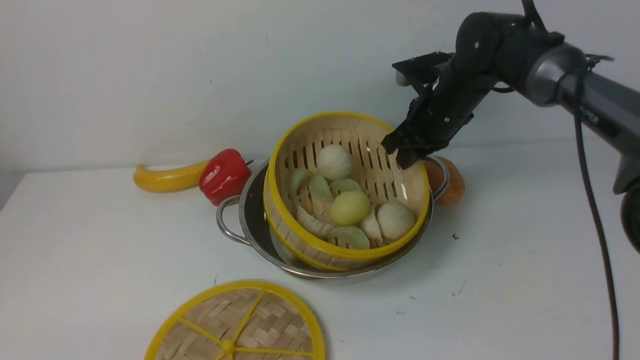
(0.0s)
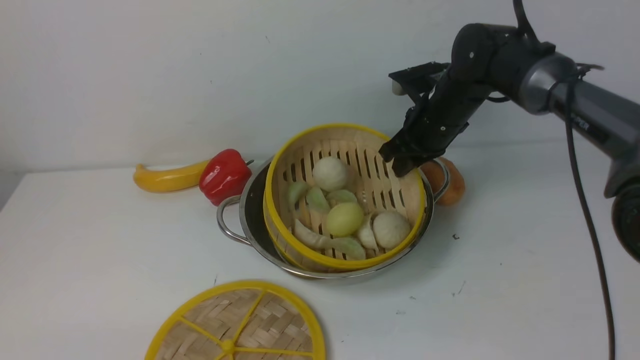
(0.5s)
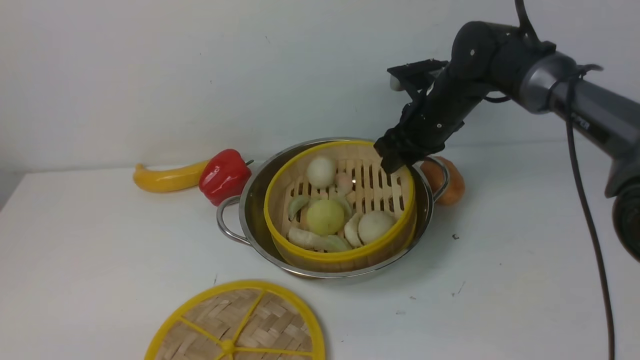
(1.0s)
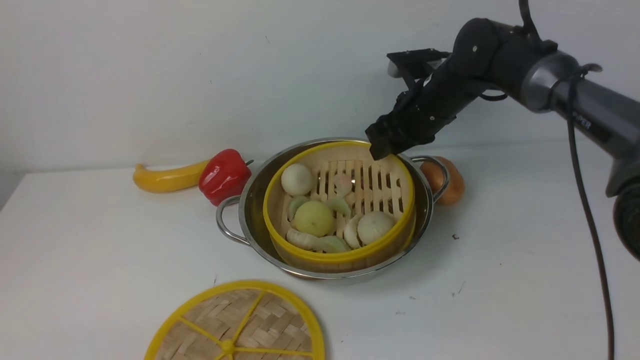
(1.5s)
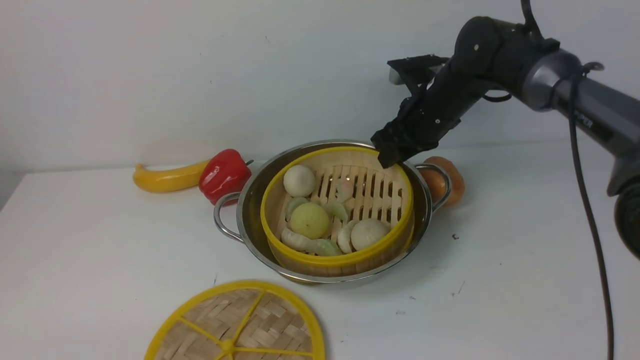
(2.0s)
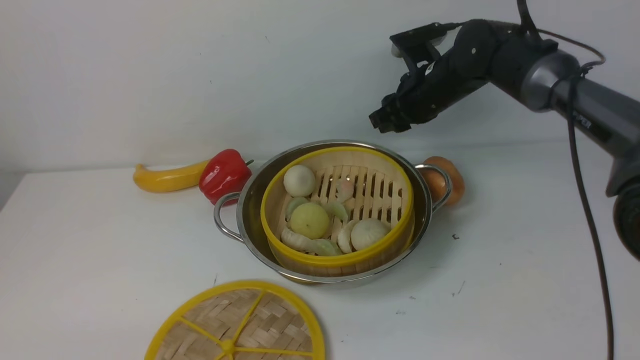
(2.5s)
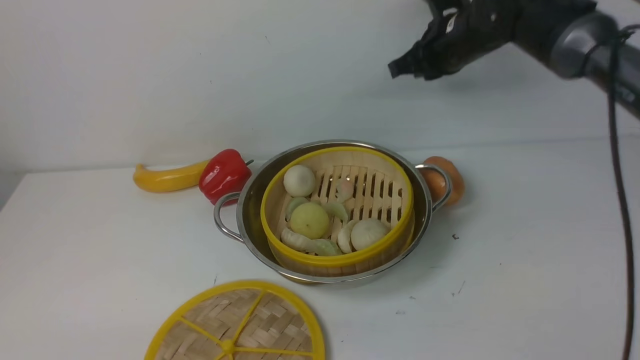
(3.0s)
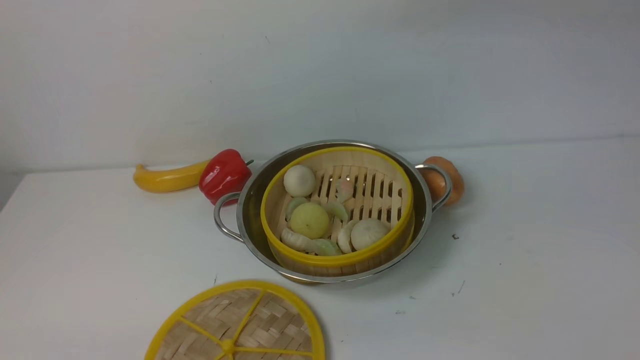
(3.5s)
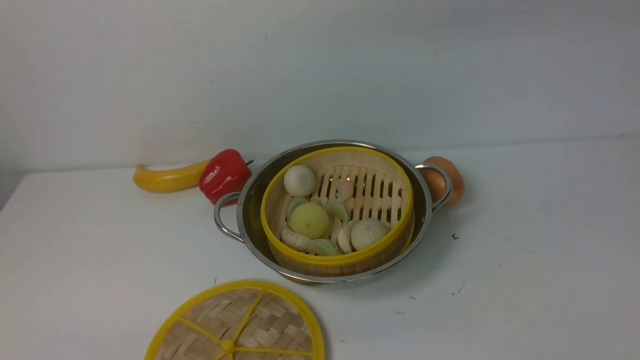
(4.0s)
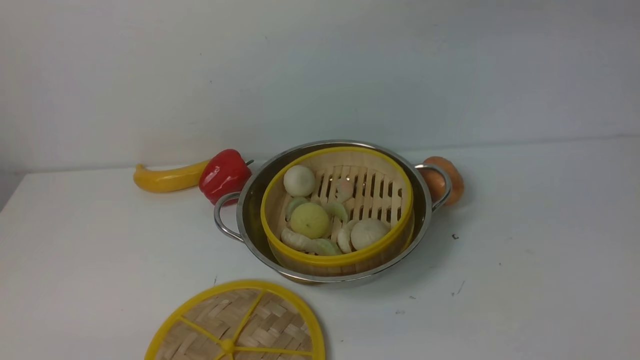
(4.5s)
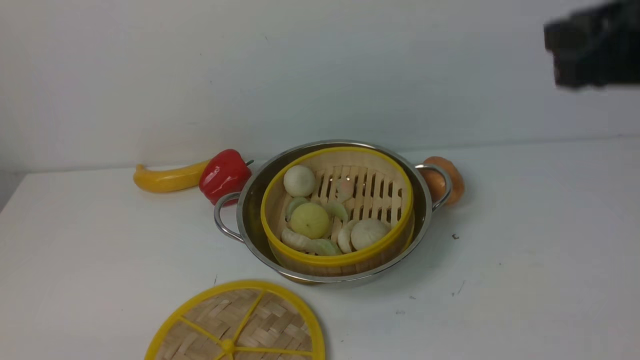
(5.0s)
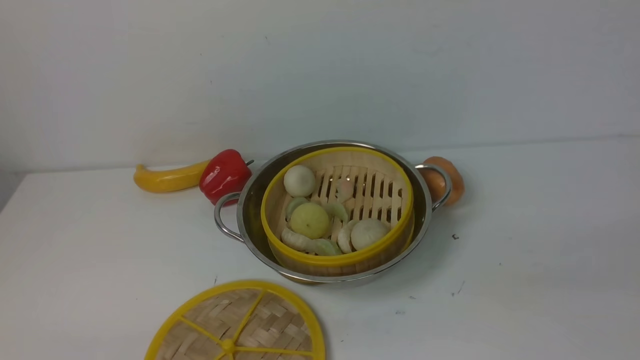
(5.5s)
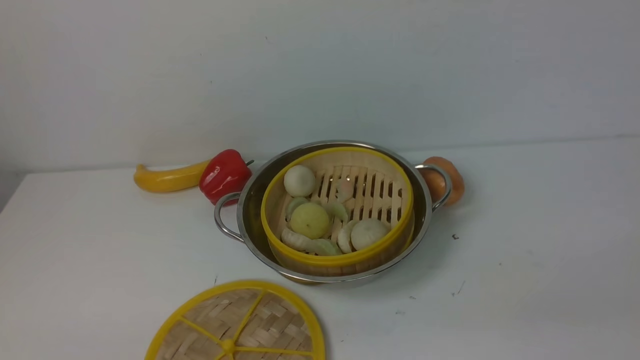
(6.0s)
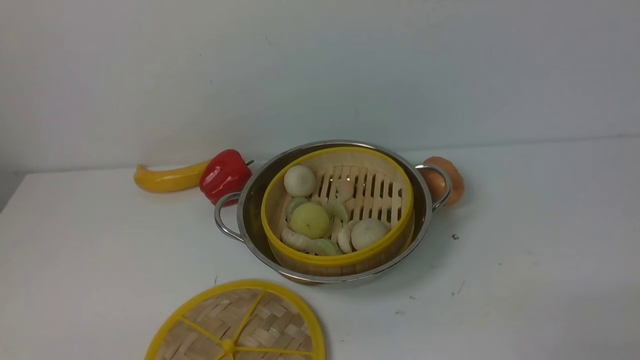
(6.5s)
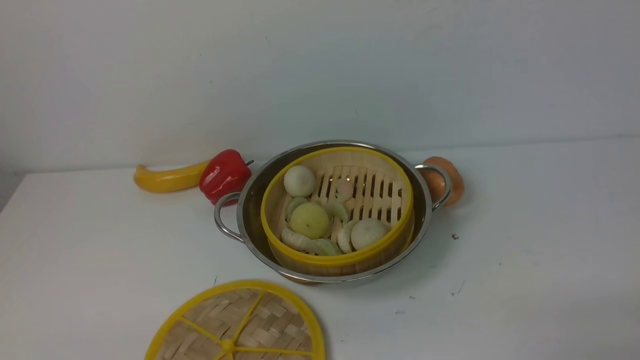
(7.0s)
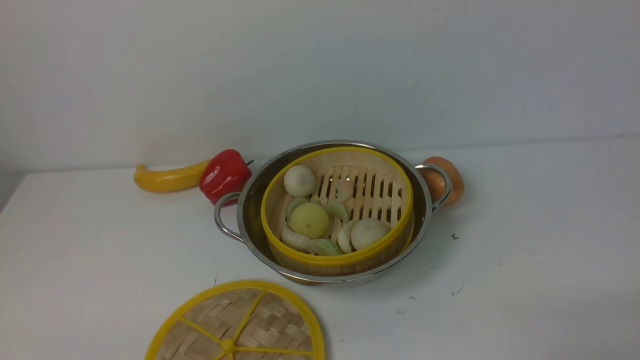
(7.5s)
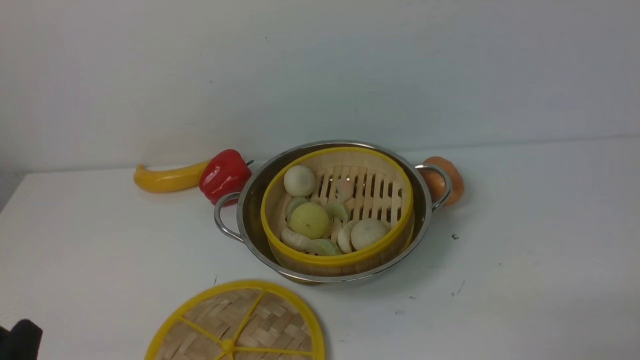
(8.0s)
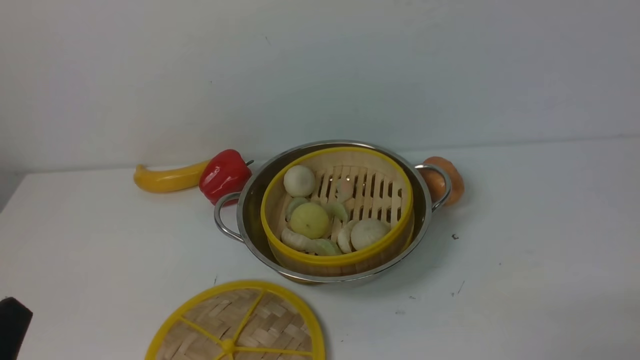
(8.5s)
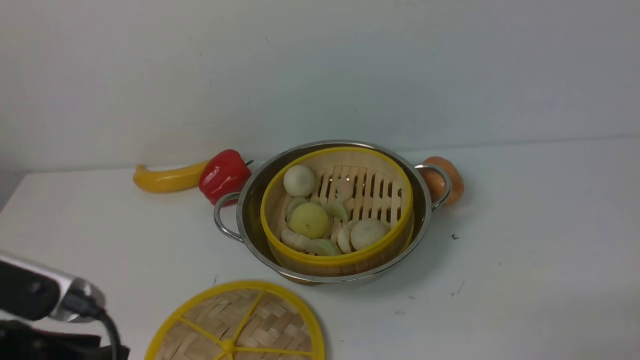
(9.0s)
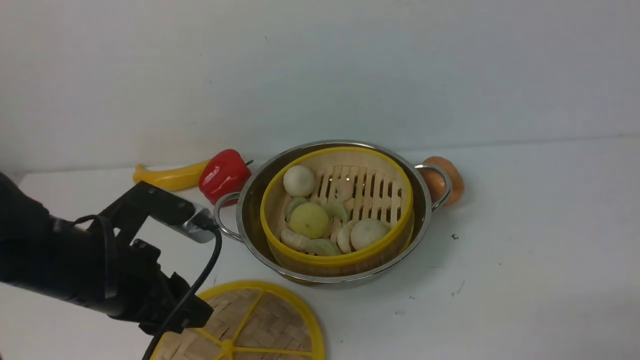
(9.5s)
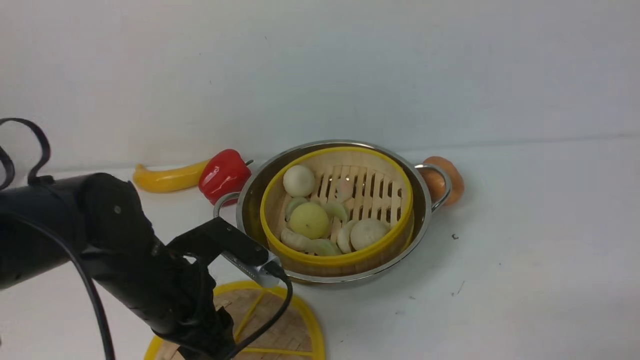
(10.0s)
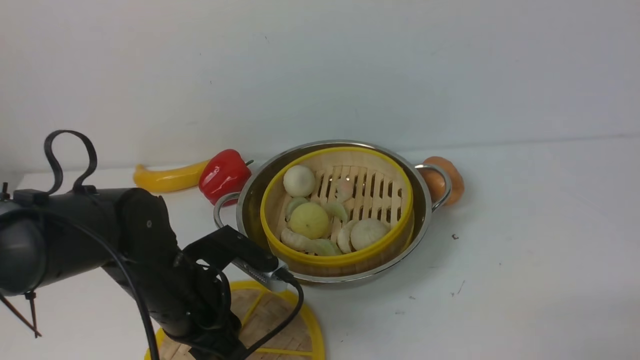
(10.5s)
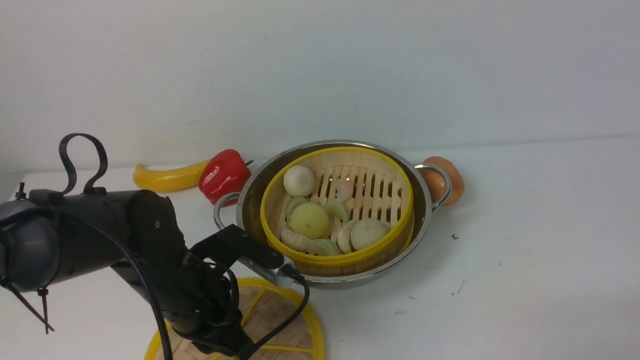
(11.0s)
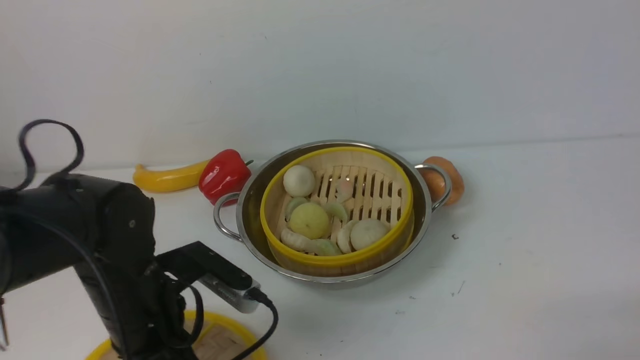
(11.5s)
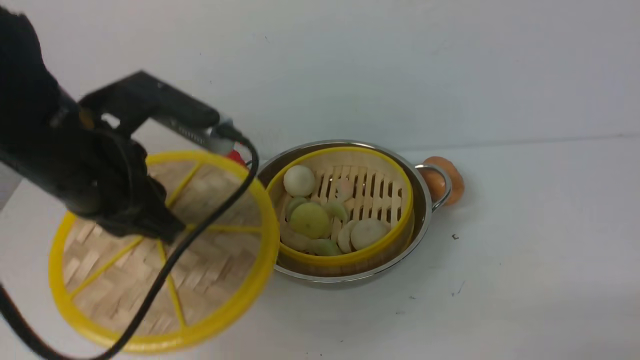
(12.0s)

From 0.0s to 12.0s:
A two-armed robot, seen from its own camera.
Task of the whole recording: place the steamer in the pot on the white table, and put the lid on the steamer.
Step, from 0.0s to 2.5s: use the right arm to put the steamer into the iron steamer pot in the middle.
Step, from 3.0s to 11.5s: use the left arm to lift the lid of the steamer.
From 0.0s to 2.0s: The right gripper opens its fingers.
From 2.0s to 4.0s: The right gripper heads upward and backward, covering approximately 30 cm, and closes its fingers.
From 8.0s to 10.0s: The left gripper travels forward and to the right by some 20 cm.
From 10.0s to 12.0s: The left gripper travels upward by about 15 cm, and closes up.

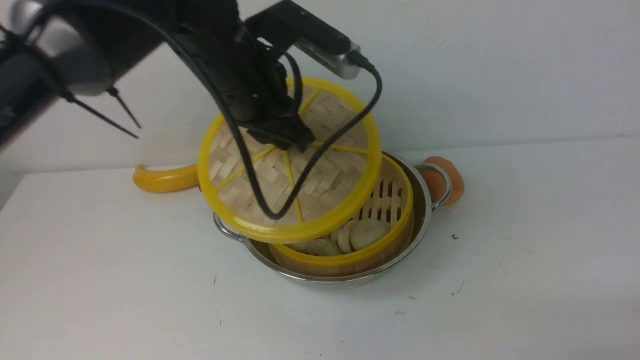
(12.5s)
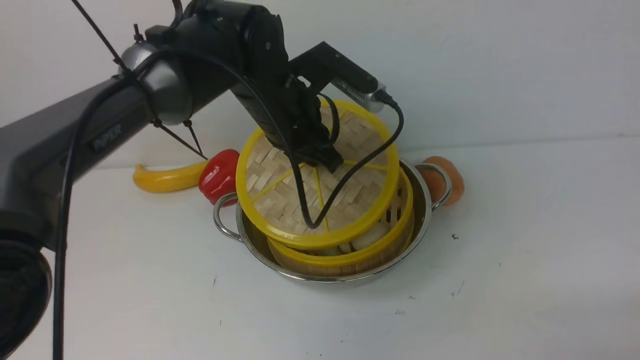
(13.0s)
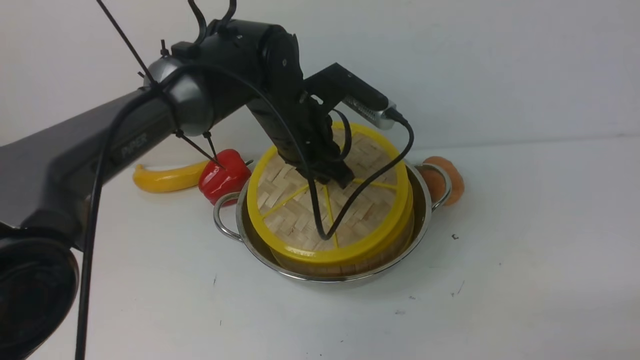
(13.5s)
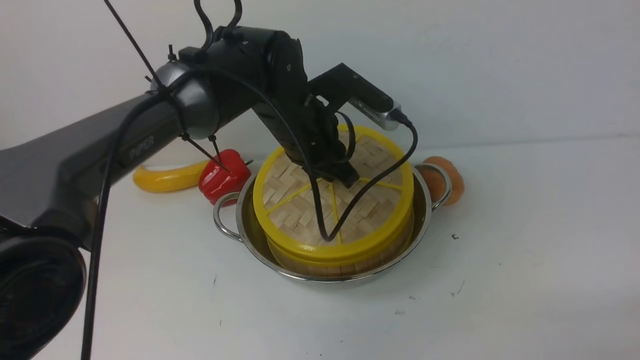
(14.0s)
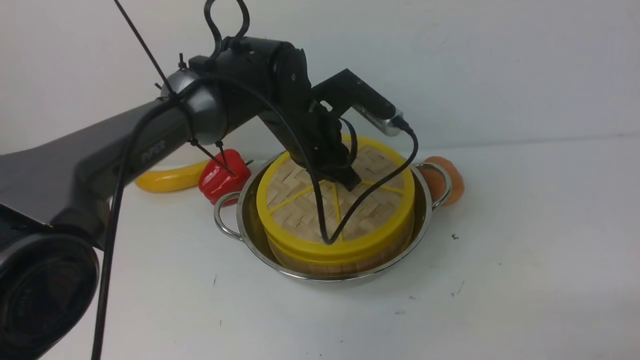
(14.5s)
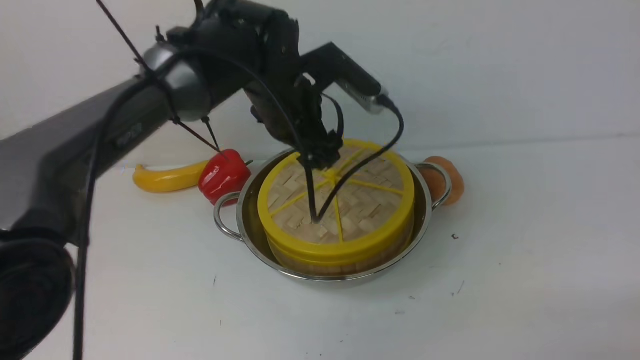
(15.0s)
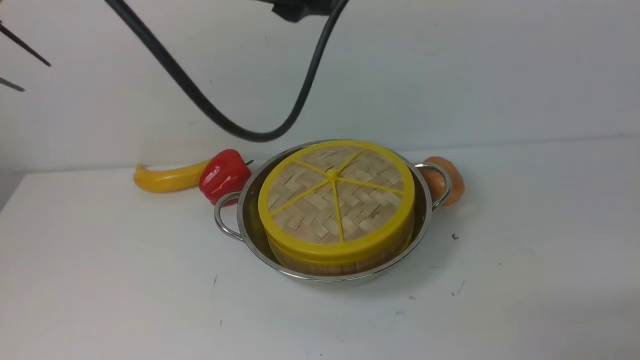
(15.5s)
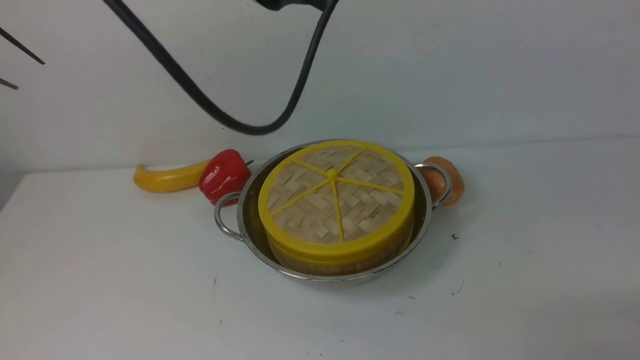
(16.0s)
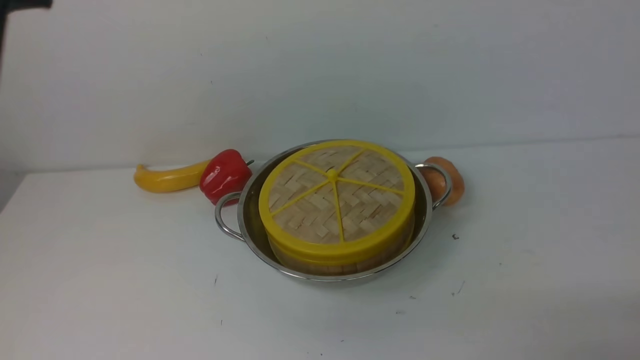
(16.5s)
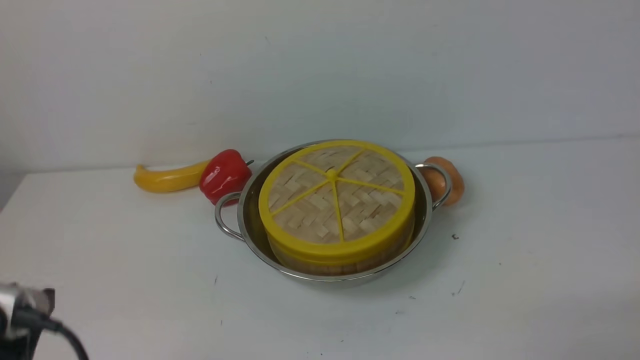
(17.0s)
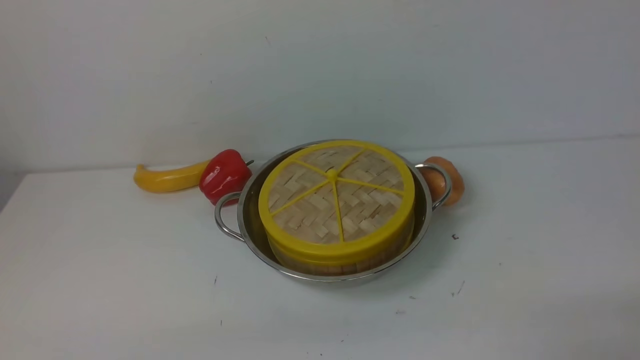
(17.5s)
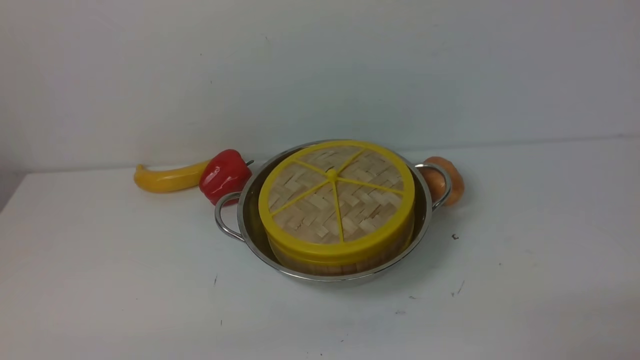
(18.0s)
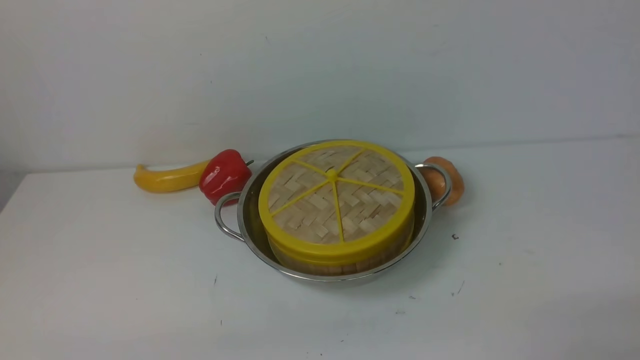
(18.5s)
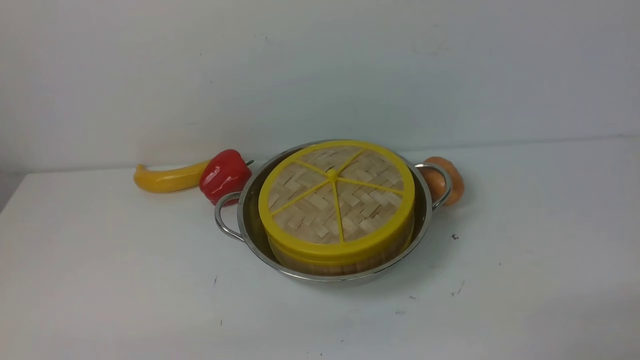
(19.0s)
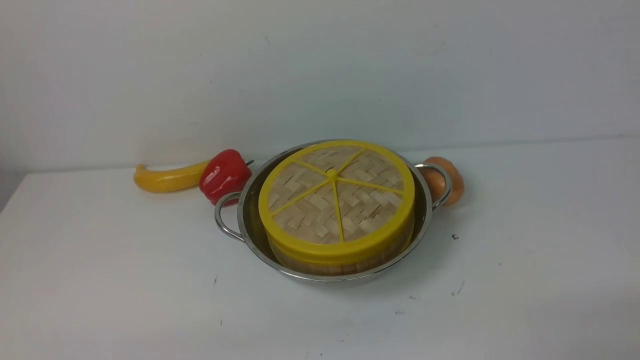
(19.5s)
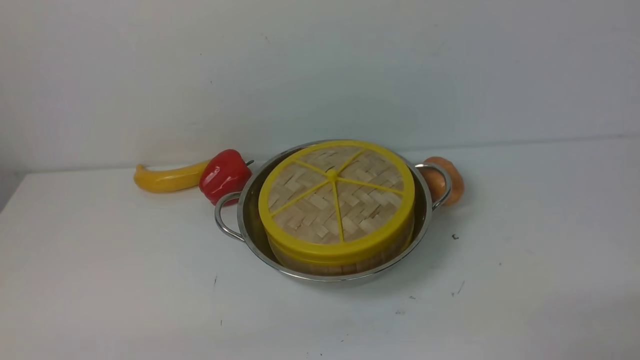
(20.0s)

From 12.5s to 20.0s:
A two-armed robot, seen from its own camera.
Task of the whole recording: place the steamer in the pot on the white table, and put the lid on the steamer.
Step, from 12.5s to 15.5s: use the left arm to place the steamer lid on the steamer.
From 12.5s to 14.5s: The left gripper is displaced downward and forward by about 10 cm.
From 14.5s to 16.5s: The left gripper goes approximately 35 cm upward, backward and to the left, and opens, then closes again.
From 18.0s to 20.0s: Both grippers stay put.
